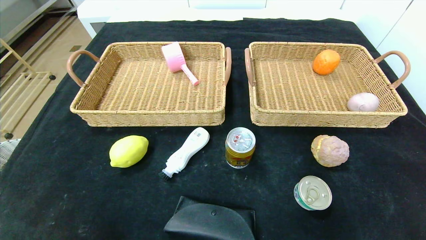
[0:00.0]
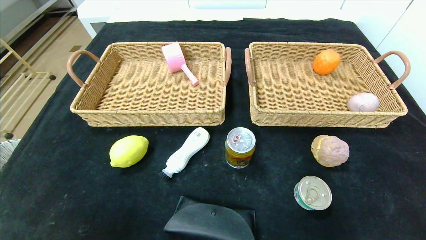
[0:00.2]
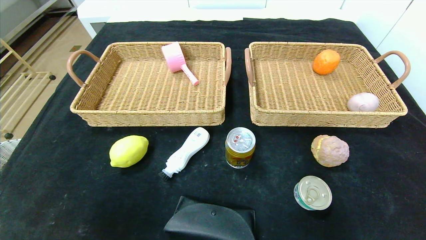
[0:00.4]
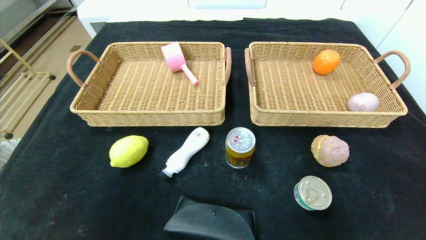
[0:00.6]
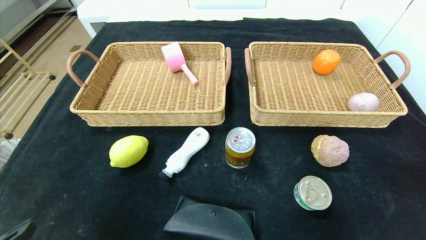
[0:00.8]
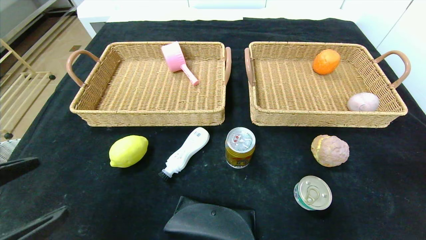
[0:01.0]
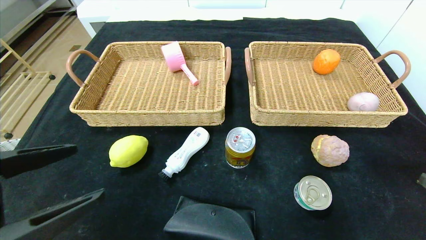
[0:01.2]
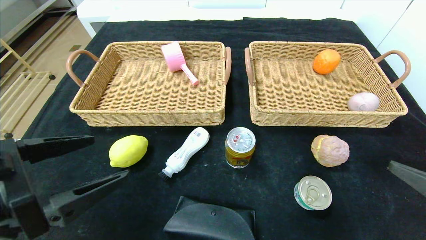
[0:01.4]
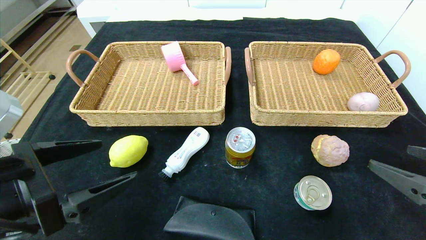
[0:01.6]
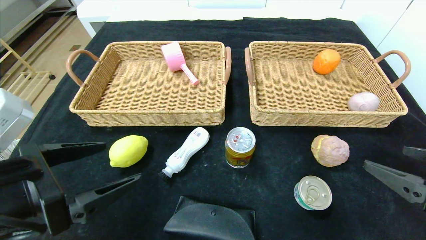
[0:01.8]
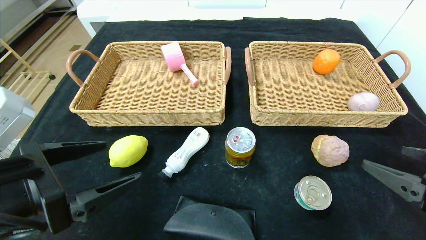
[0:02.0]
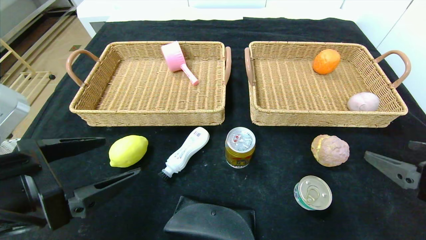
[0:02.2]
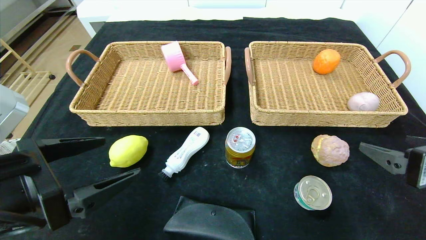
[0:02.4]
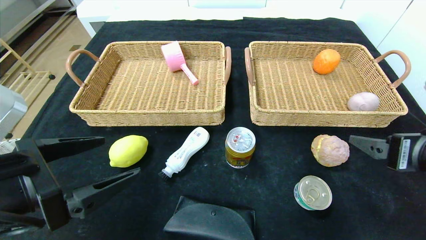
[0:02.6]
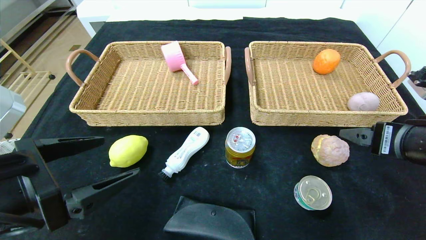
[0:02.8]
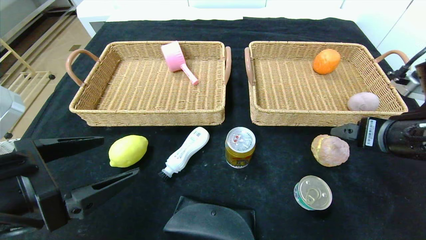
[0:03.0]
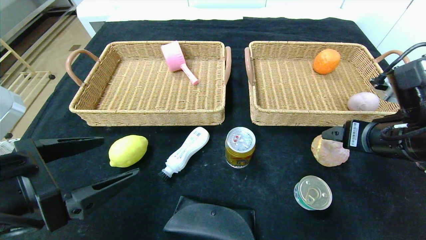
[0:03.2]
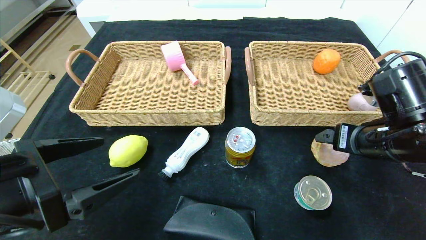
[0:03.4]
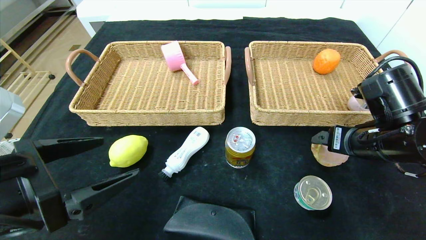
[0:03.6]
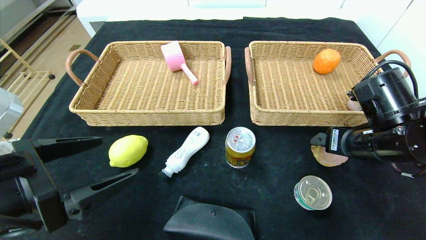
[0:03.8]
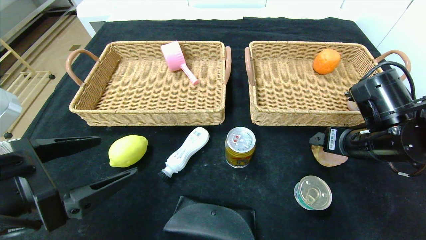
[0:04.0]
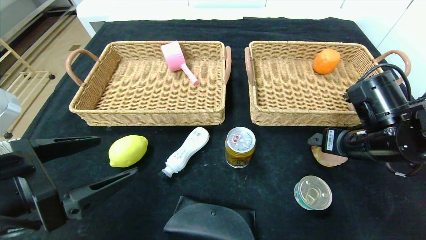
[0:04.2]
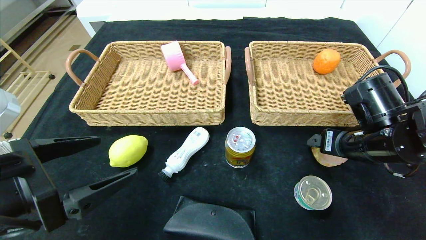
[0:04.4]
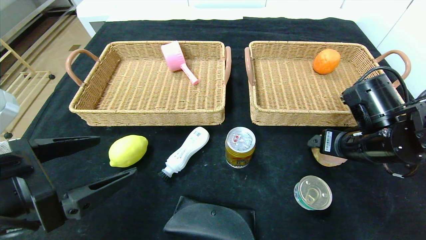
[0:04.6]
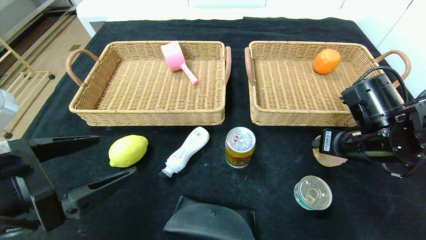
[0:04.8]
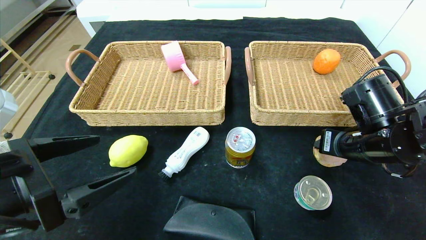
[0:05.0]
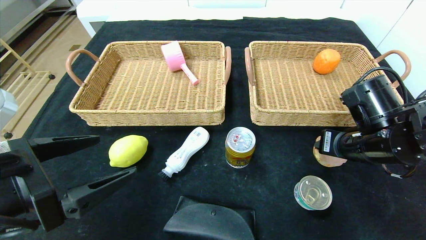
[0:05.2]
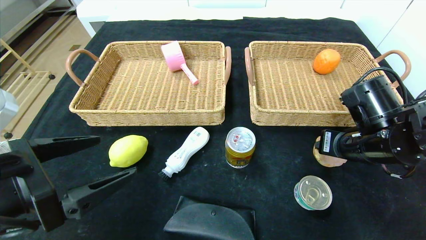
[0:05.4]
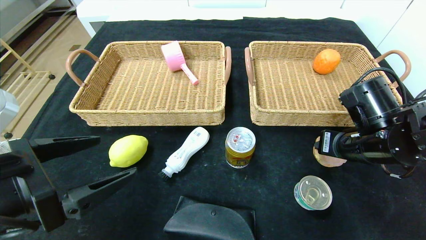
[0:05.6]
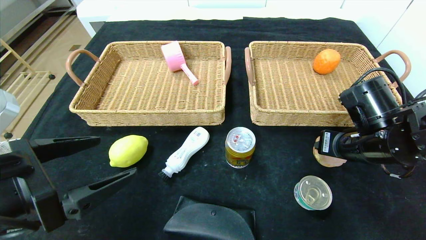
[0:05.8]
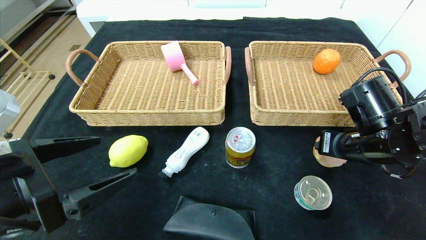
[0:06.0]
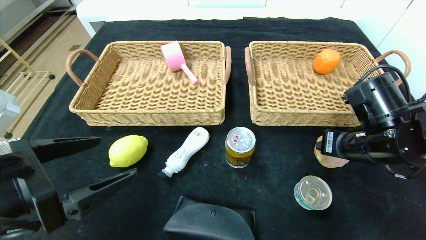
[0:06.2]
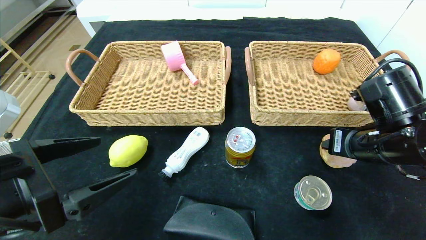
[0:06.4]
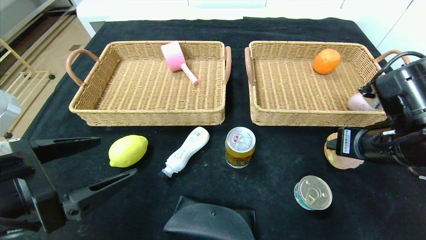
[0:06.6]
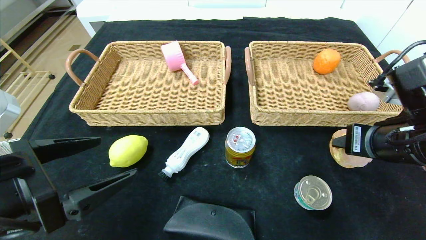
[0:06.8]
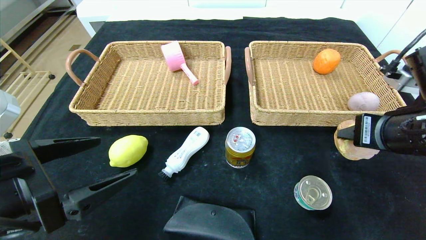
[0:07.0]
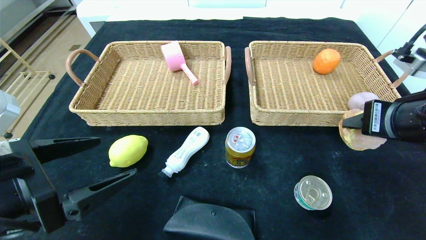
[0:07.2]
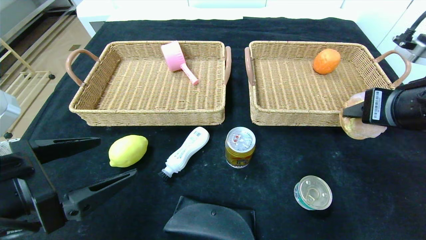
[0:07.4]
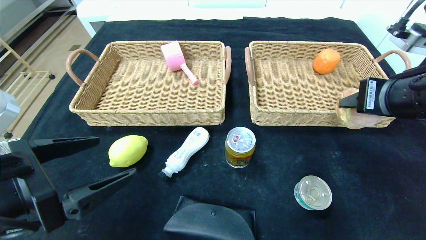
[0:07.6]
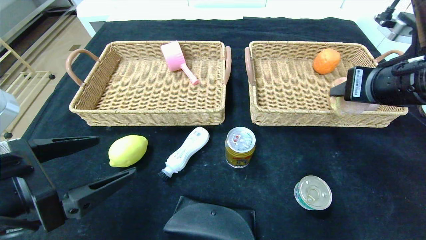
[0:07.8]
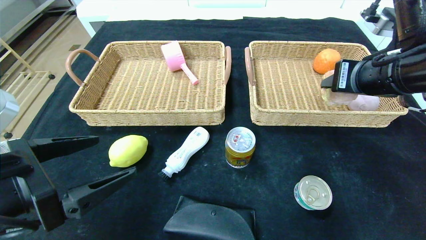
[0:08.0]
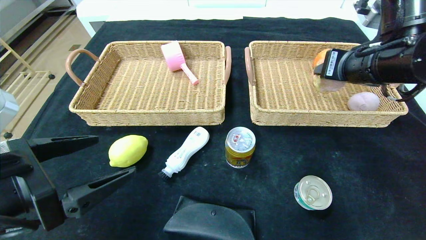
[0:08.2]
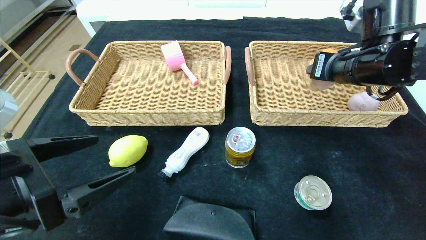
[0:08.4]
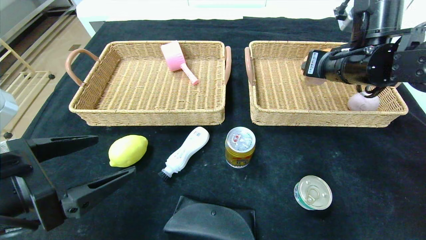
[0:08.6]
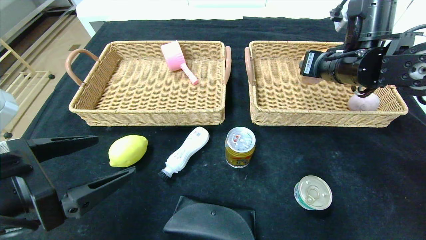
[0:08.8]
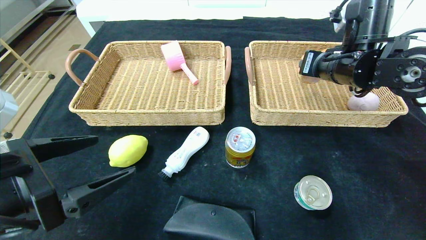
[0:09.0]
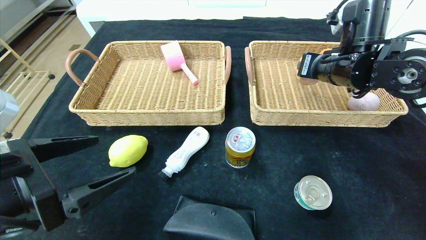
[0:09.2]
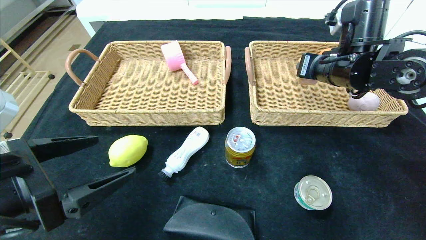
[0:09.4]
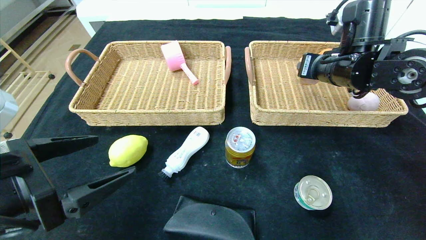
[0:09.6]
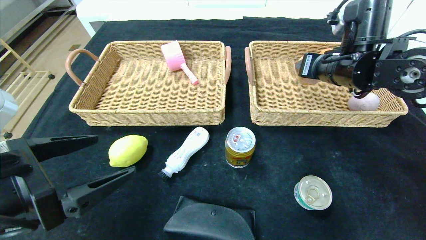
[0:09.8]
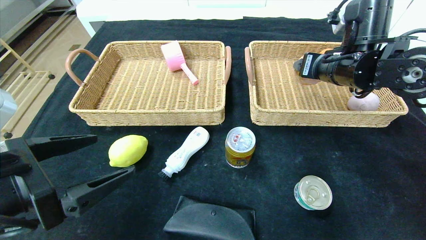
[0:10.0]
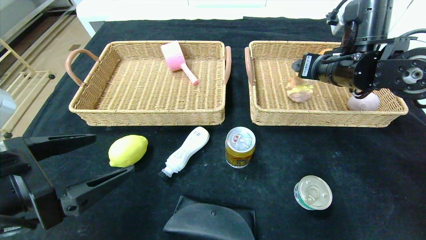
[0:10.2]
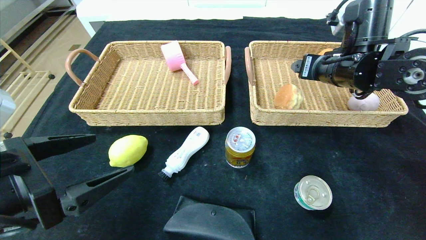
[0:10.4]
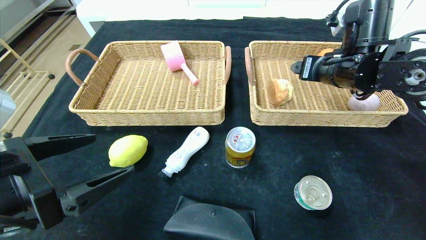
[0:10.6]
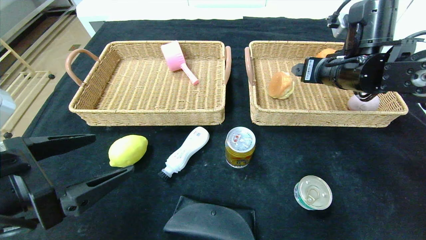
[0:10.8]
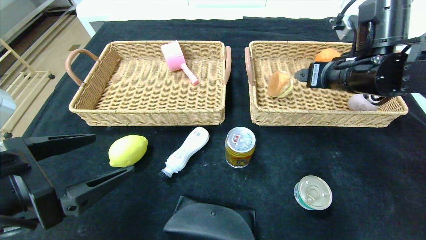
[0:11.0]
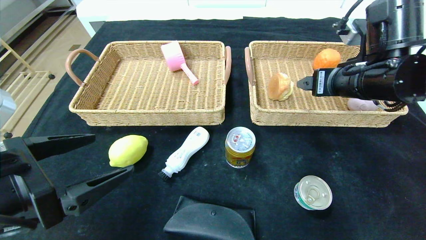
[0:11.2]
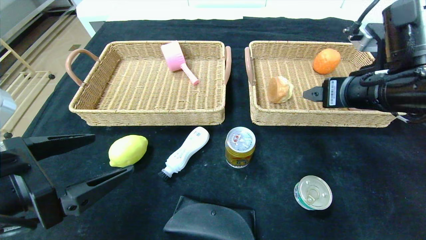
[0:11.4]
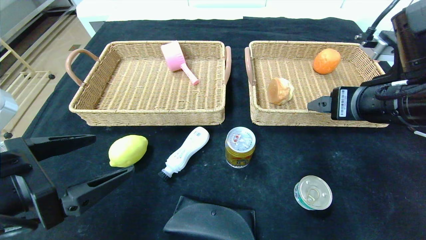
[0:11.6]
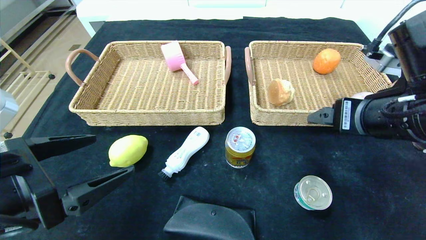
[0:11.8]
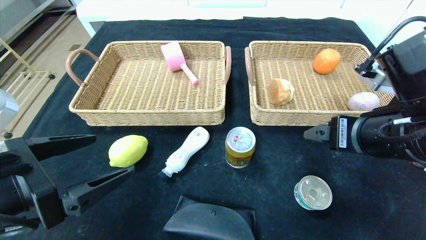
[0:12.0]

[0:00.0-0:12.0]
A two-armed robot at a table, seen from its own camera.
Step, 0:00.0 to 0:10.2: Grasp the round bread and put it in the right basket.
0:00.0 to 0:01.6: The grippers both shift upward and forward by some 20 cm.
0:01.6 to 0:03.0: The right gripper shifts some 10 cm forward.
0:03.0 to 0:04.4: The right gripper moves forward, some 5 cm.
0:04.4 to 0:06.0: The right gripper closes up.
0:06.0 to 0:07.6: The right gripper heads upward, covering approximately 10 cm.
0:07.6 to 0:09.0: The right gripper goes roughly 15 cm forward.
0:09.0 to 0:10.4: The right gripper opens.
0:10.4 to 0:12.0: The right gripper moves backward, some 15 cm.

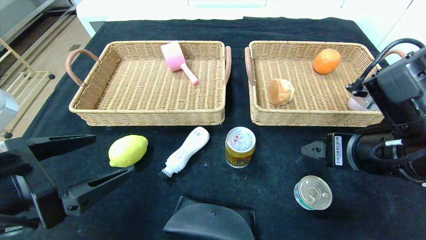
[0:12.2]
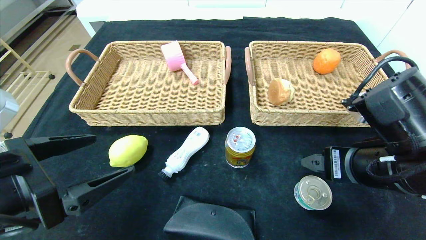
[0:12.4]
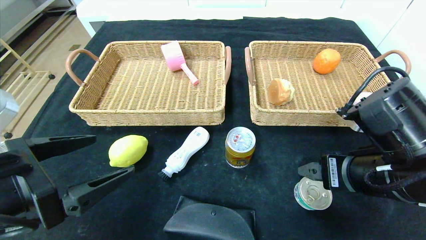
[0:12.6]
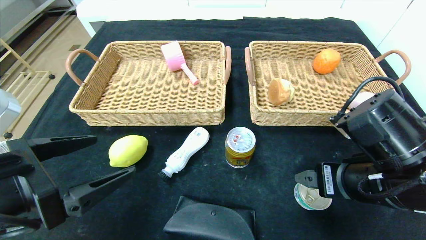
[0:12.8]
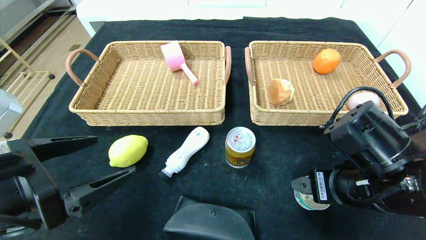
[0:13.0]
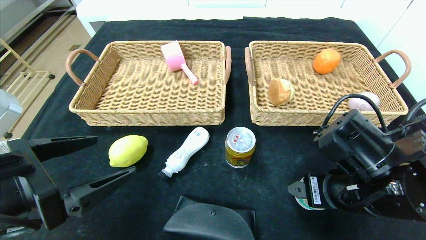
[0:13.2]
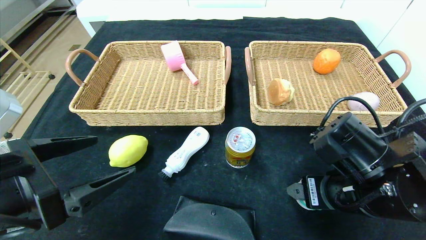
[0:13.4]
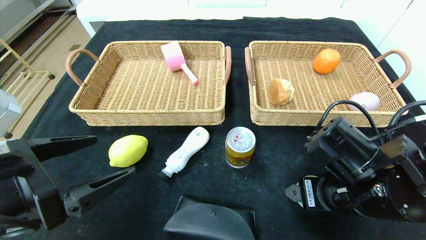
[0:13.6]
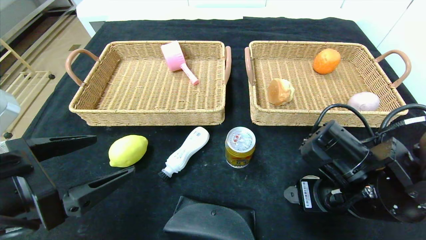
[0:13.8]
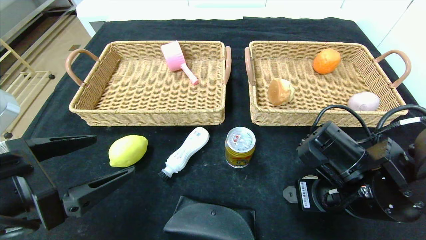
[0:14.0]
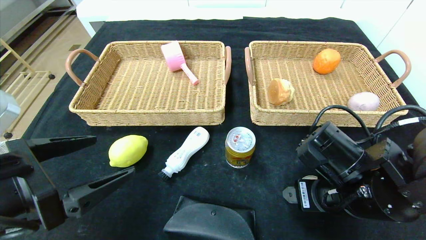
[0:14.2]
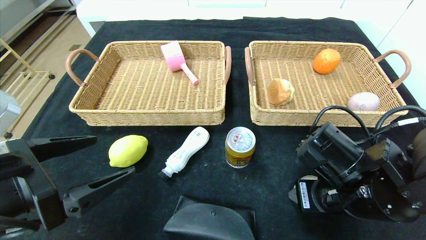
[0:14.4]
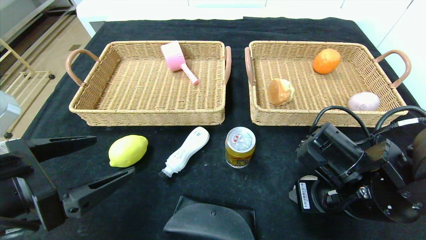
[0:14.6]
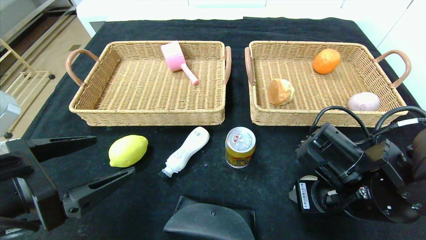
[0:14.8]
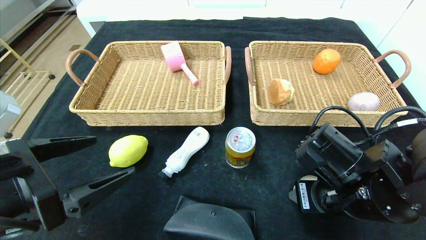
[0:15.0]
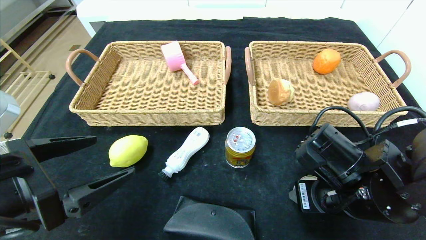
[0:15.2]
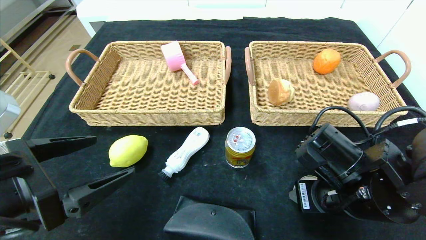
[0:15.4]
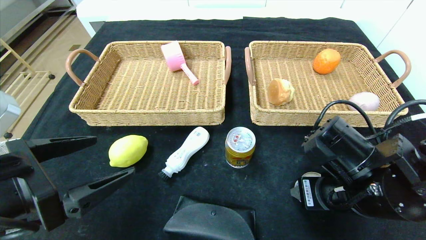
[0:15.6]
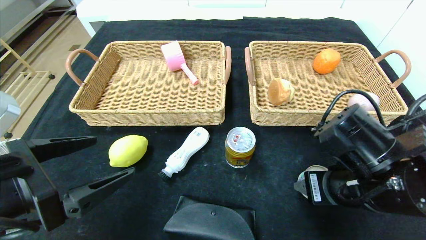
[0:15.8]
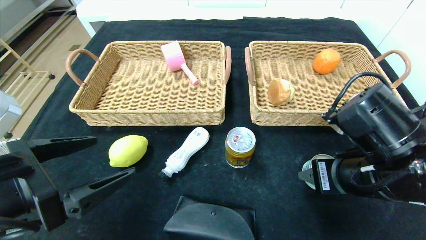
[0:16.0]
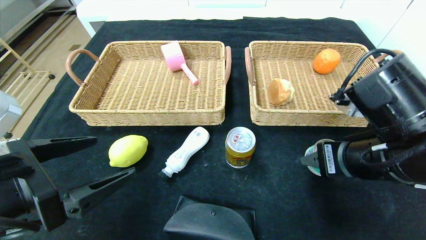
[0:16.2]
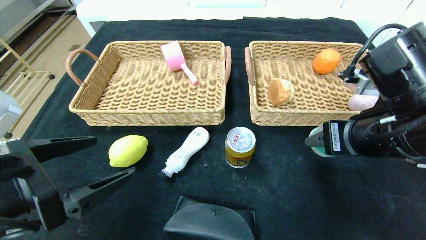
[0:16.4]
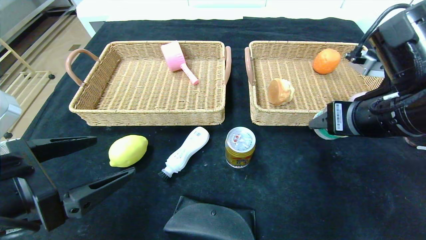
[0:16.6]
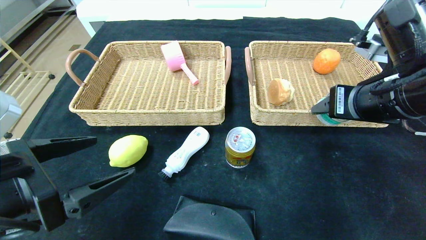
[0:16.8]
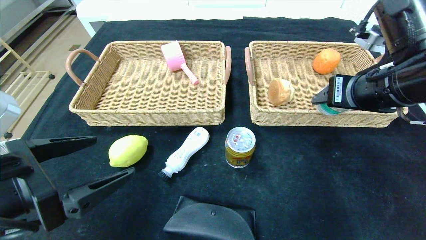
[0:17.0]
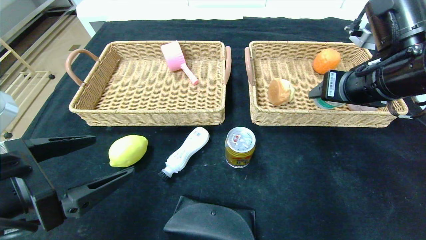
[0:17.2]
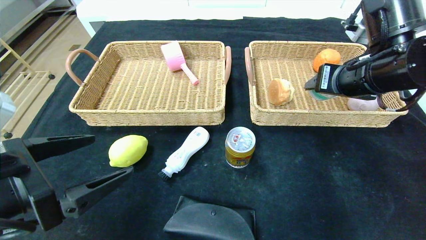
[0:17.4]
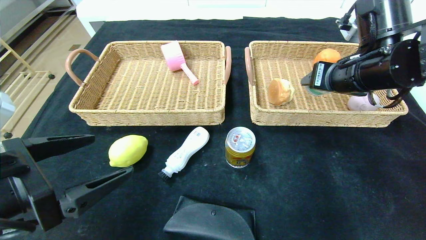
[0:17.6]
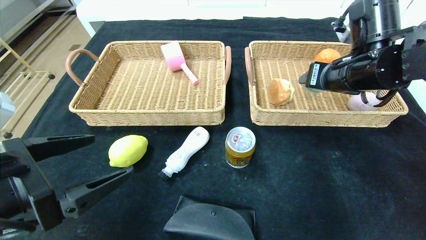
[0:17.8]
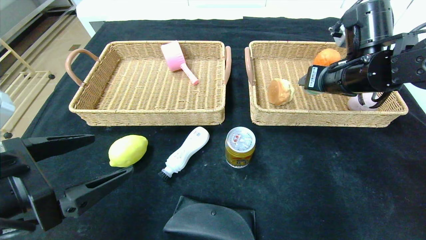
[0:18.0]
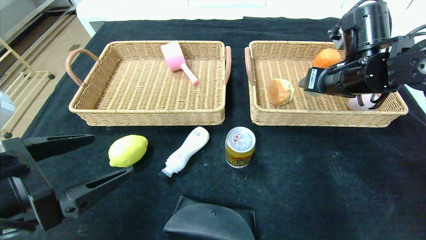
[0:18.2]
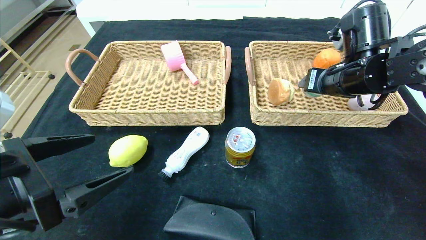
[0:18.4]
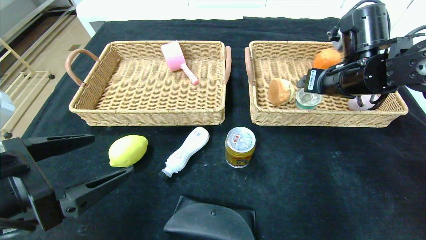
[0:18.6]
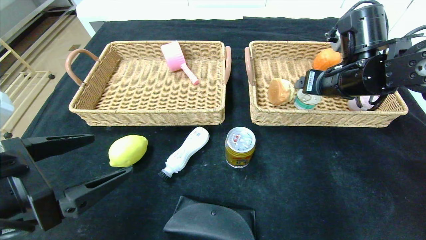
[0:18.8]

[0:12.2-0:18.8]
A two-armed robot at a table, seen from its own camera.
Step, 0:12.2 to 0:18.6: Grasp the can and put it in the right basket.
0:12.2 to 0:13.8: The right gripper shifts about 5 cm downward.
0:13.8 to 0:15.4: The right gripper closes its fingers.
0:15.4 to 0:17.2: The right gripper travels upward and forward by approximately 15 cm.
0:17.2 to 0:18.8: The right gripper is displaced forward by some 5 cm, and opens its fingers.
